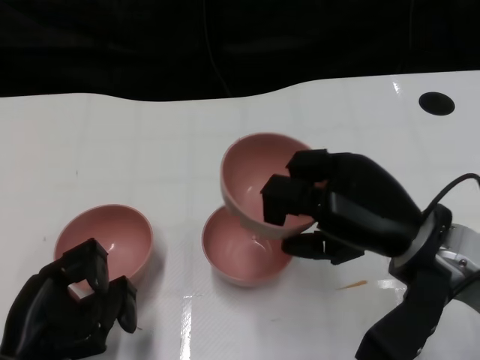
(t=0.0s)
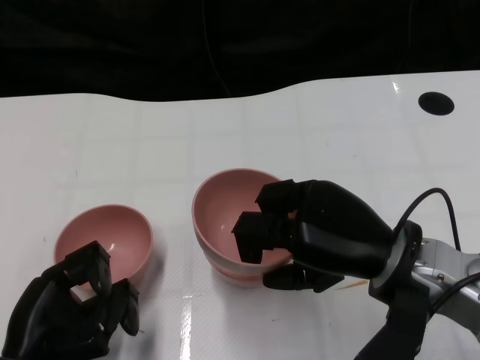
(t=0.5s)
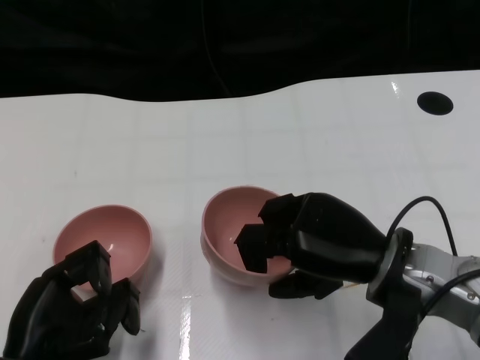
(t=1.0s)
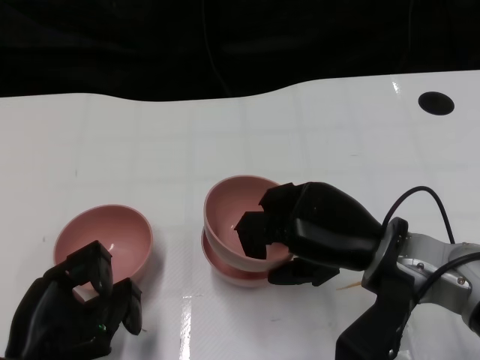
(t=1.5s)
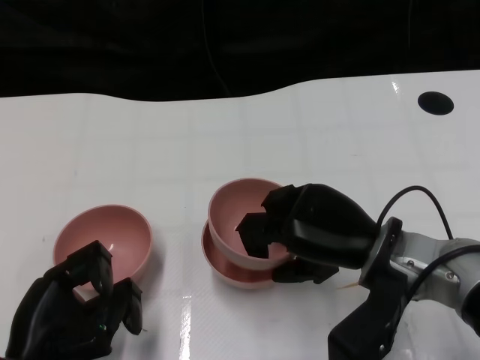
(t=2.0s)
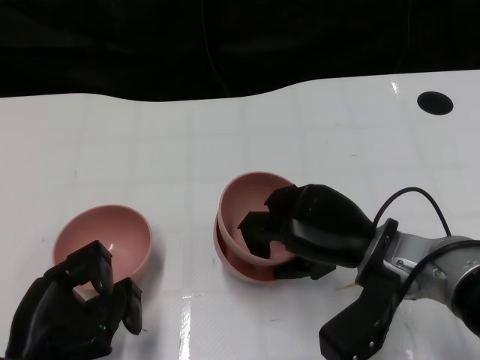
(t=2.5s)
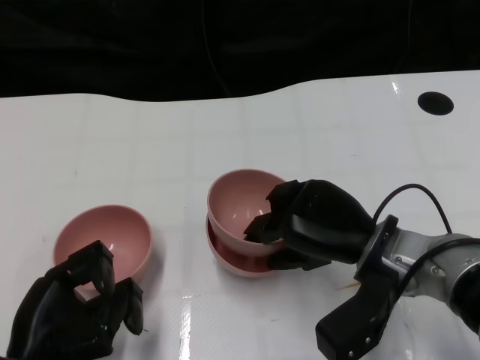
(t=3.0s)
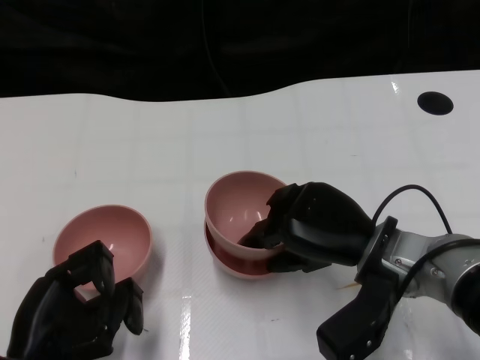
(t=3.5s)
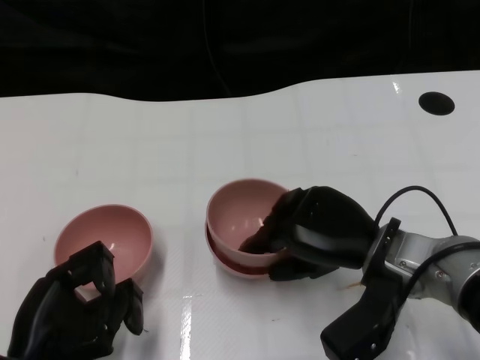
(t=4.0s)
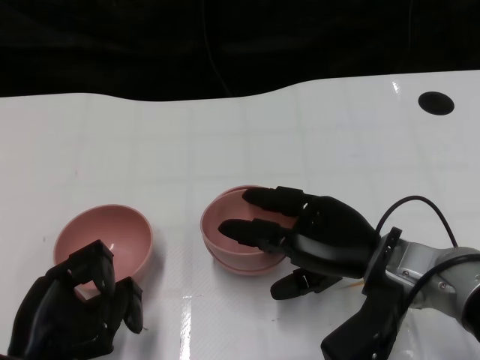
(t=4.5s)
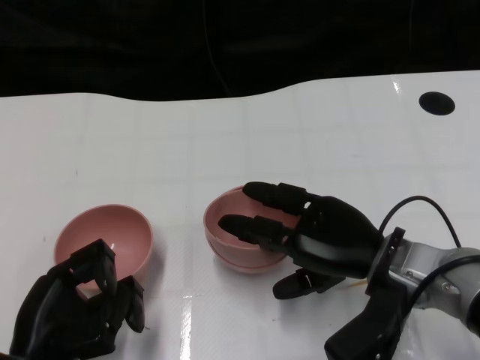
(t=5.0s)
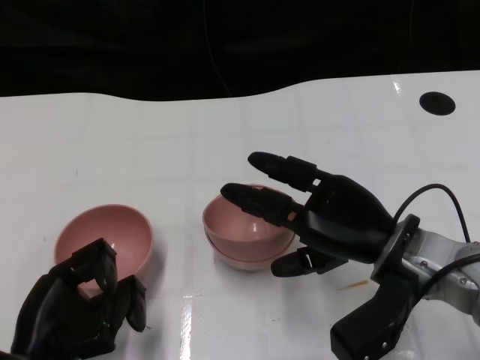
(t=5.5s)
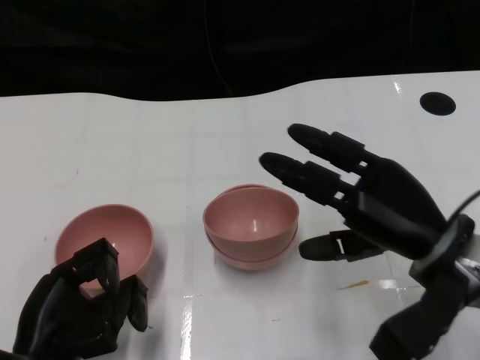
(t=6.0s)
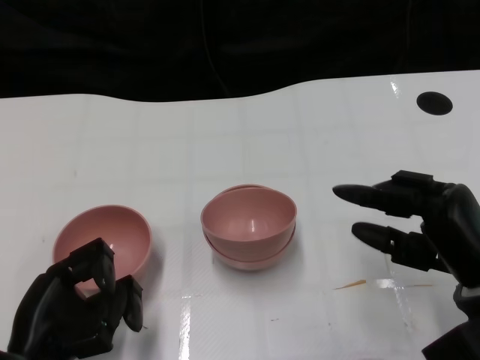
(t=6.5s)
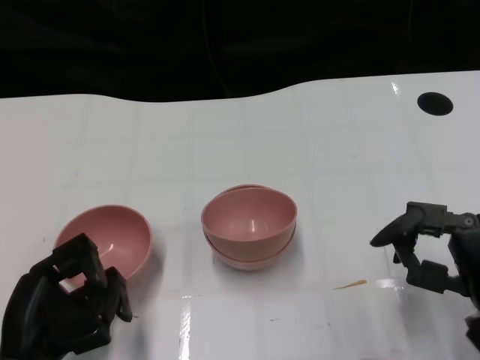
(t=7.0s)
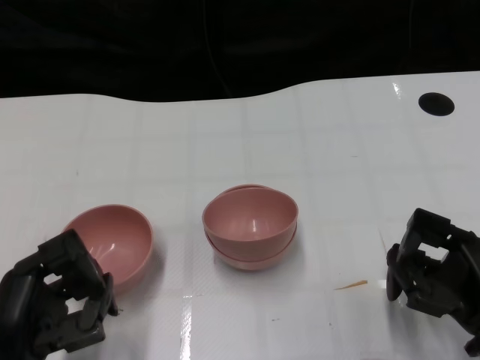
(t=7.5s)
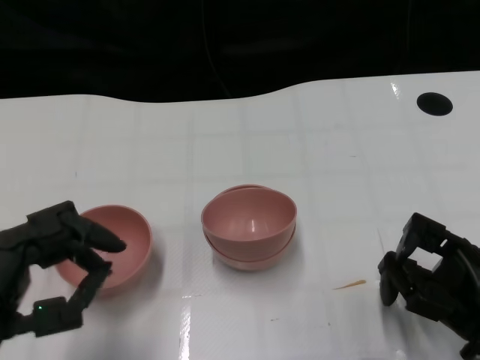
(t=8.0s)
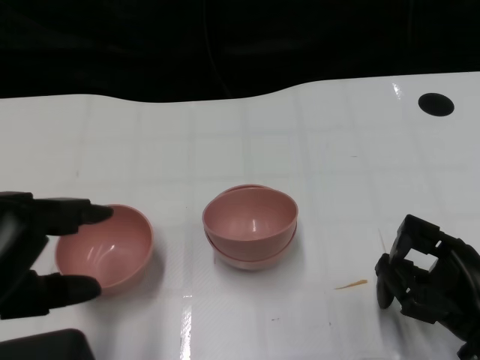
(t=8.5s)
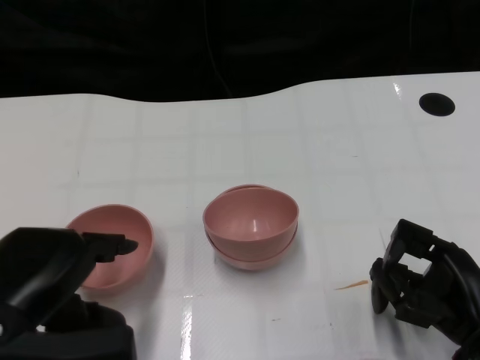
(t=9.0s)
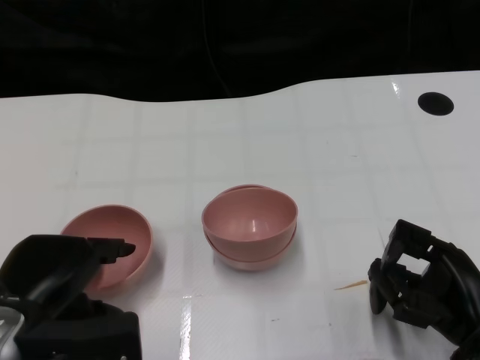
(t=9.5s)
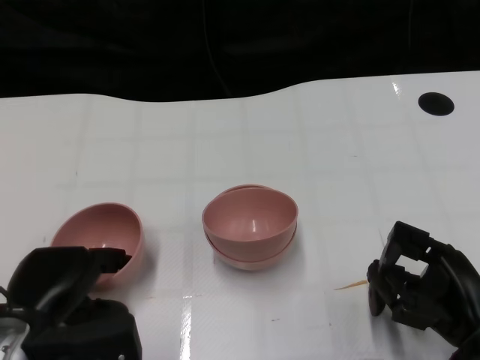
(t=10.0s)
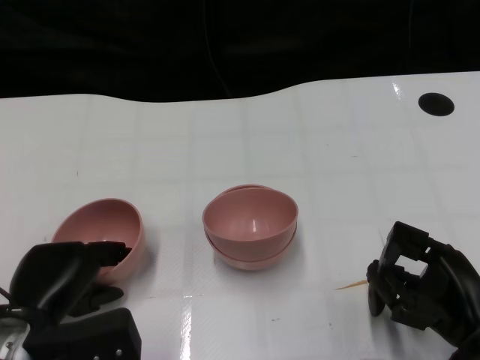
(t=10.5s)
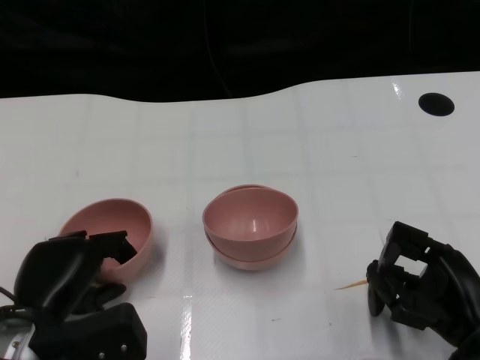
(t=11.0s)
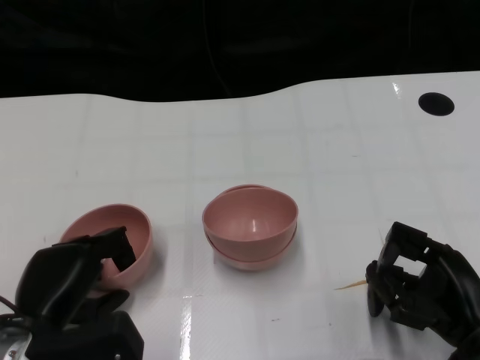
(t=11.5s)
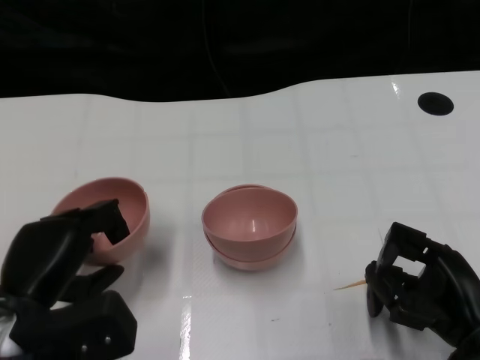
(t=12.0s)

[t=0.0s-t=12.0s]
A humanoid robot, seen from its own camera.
Task of the whole recording: Pick up the bowl on one side of the table and place it on top of the middle bowl, then pick up the bowl on the other side of the table and place it on top of the middle bowls.
Step, t=0.0s to t=5.5s: Place the bowl on the right onto the bowl in the middle with right gripper.
Step, t=6.0s to t=11.5s: Grasp the bowl on the left with the left gripper.
t=0.0s to t=2.0s: The right hand ends up approximately 5 cm from where it was.
t=2.0s to t=4.0s: The hands make only small movements.
t=4.0s to t=6.0s: The right hand moves approximately 5 cm.
t=6.0s to t=8.0s: The right hand goes approximately 10 cm downward, to the right and backward. The left hand is displaced upward by some 10 cm.
t=8.0s to t=10.0s: The left hand shifts some 10 cm downward and forward.
t=10.0s to t=12.0s: The hands move only a little.

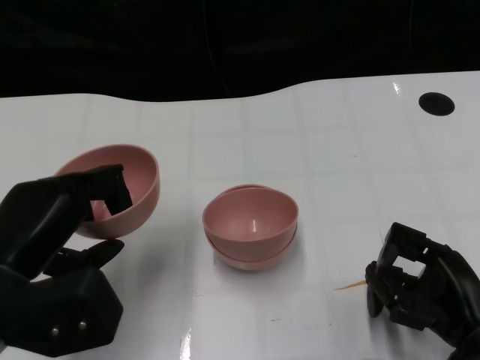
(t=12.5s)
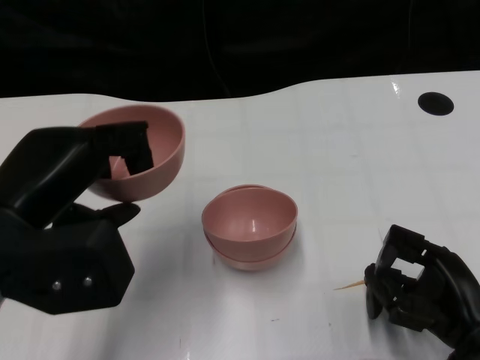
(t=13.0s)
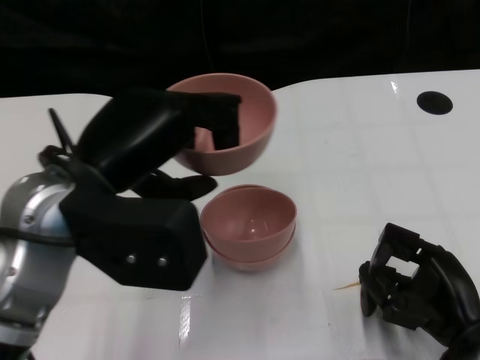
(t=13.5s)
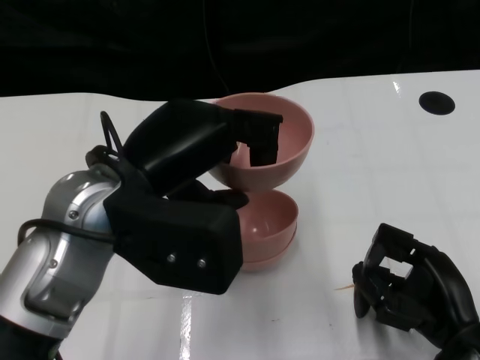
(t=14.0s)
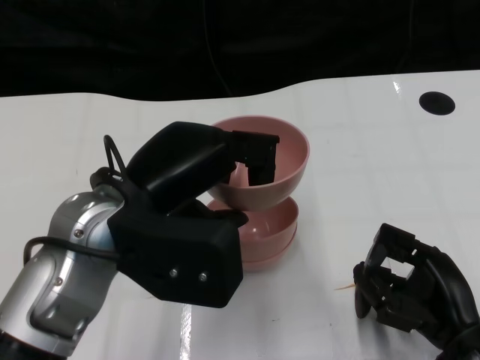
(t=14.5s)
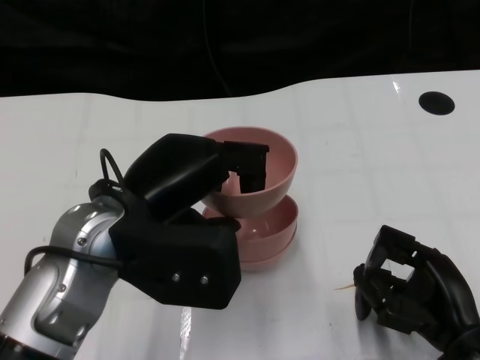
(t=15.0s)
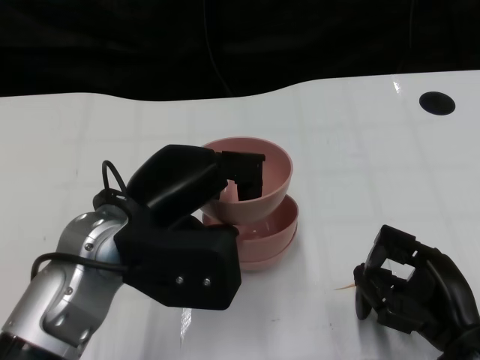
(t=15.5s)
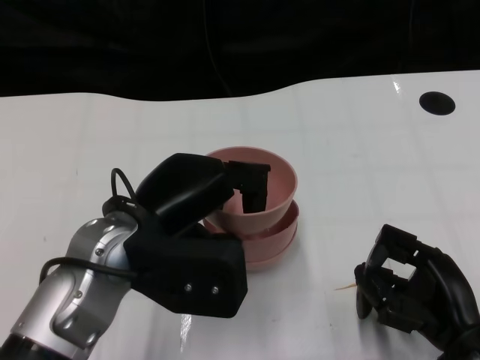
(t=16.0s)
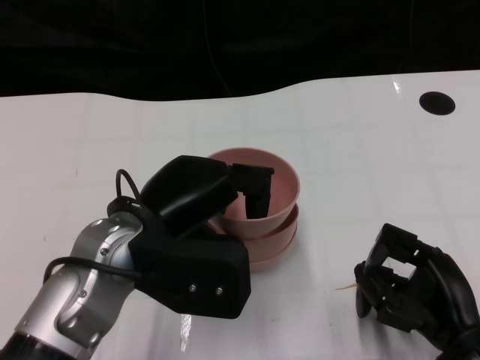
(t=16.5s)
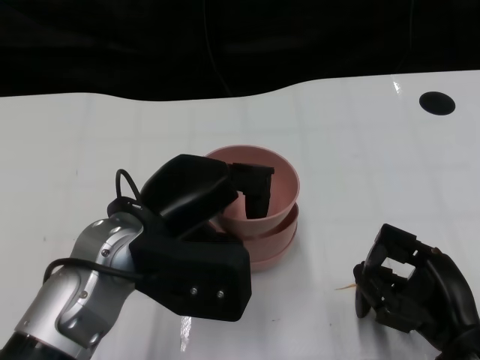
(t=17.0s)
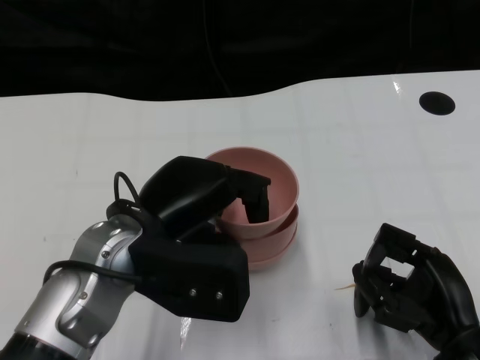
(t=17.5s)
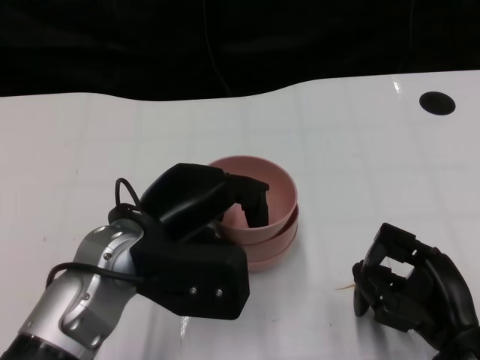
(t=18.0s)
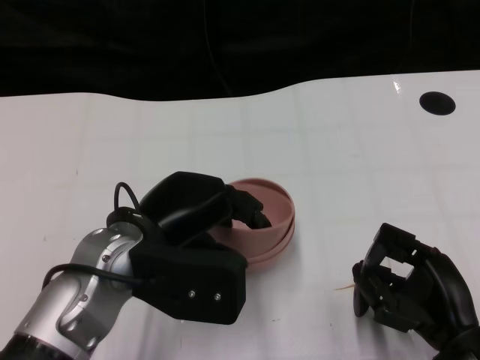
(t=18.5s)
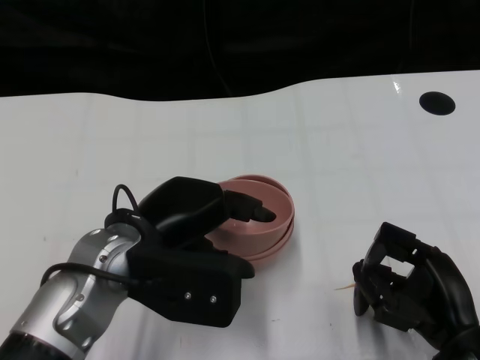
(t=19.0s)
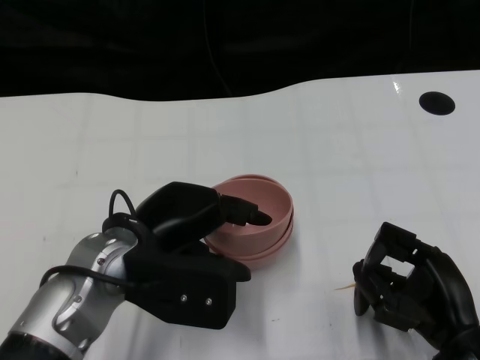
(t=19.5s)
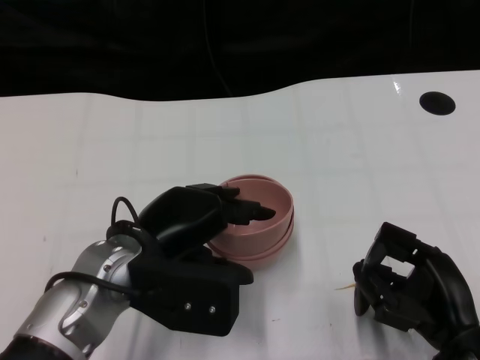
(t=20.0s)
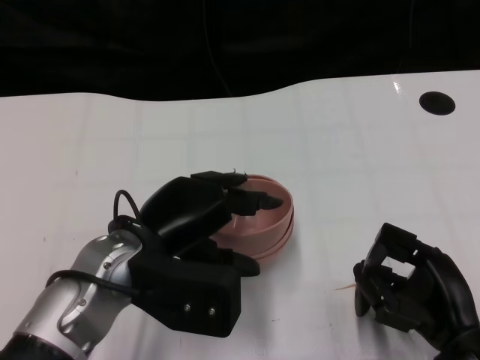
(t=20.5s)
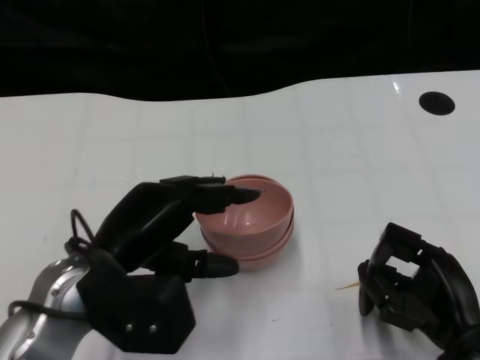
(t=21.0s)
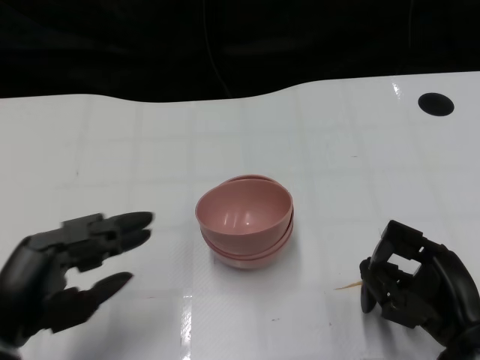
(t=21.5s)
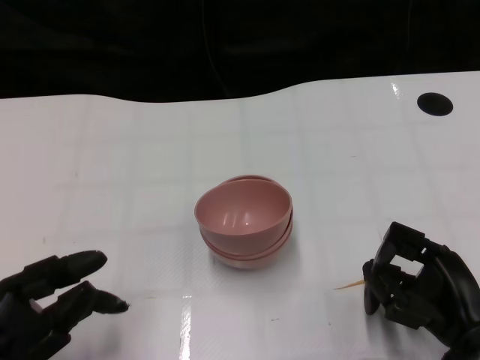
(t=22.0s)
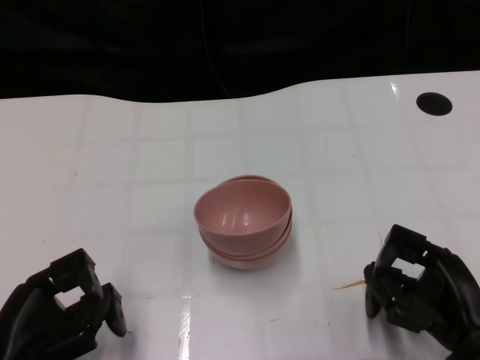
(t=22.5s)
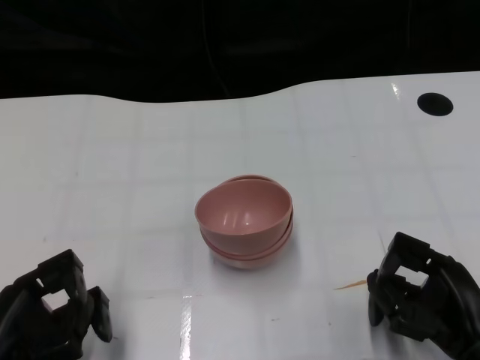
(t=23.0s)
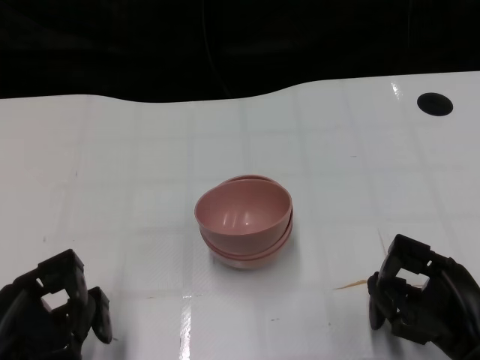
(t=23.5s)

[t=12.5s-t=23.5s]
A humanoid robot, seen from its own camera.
Task of the whole recording: Pick up the bowl on one side of the table and place it on top of the middle bowl, then pick up the bowl on the other side of the table and place it on top of the middle bowls.
Step, t=12.5s to t=21.0s: Place the bowl on the left onto the bowl in the middle with left gripper.
t=12.5s to t=14.5s: The left hand moves to the right and upward, some 10 cm.
t=14.5s to t=18.0s: The hands stay close to where they were, moving slightly.
t=18.0s to t=20.0s: The hands make only small movements.
t=20.0s to t=21.5s: The left hand travels to the left and backward by some 15 cm.
t=21.5s to t=23.5s: The left hand moves roughly 5 cm.
